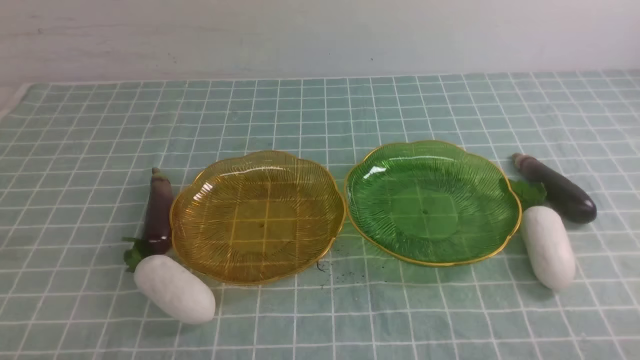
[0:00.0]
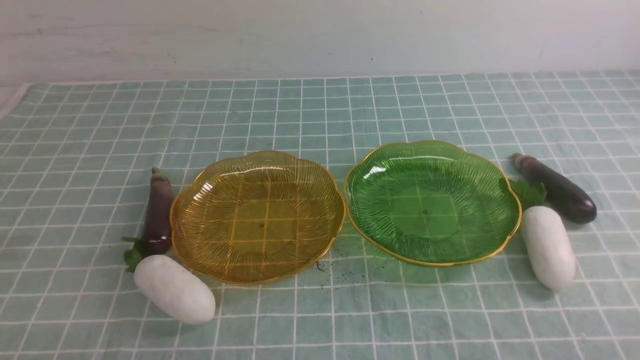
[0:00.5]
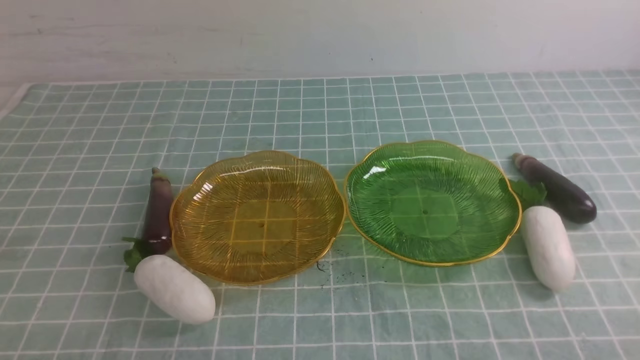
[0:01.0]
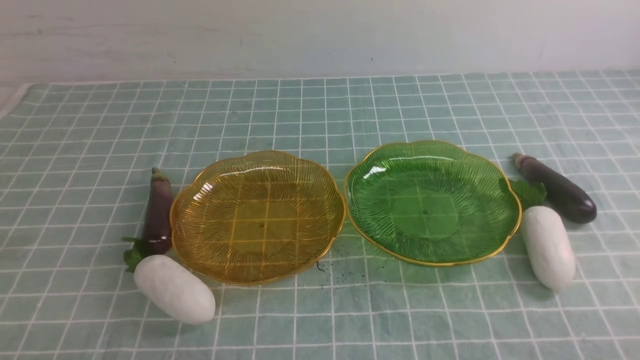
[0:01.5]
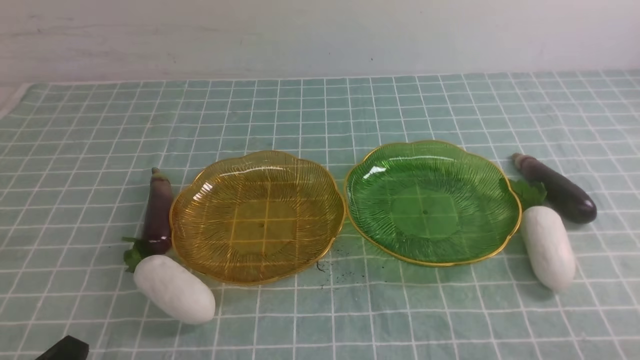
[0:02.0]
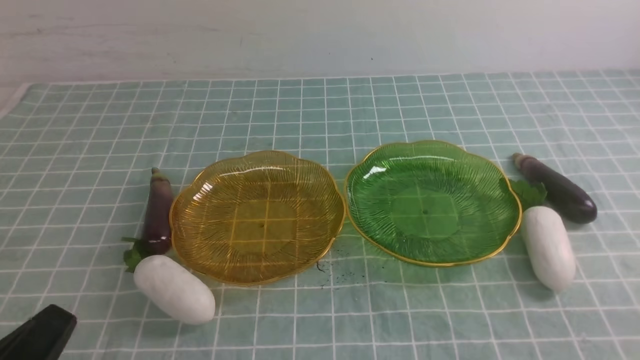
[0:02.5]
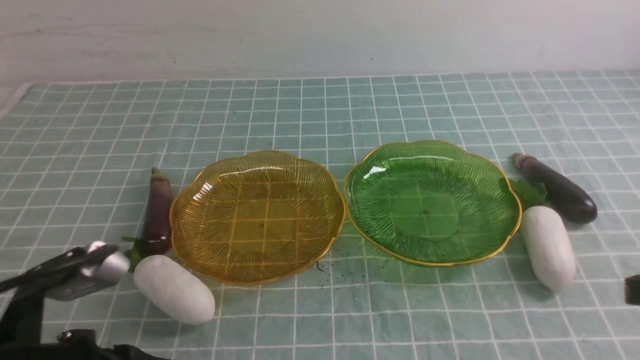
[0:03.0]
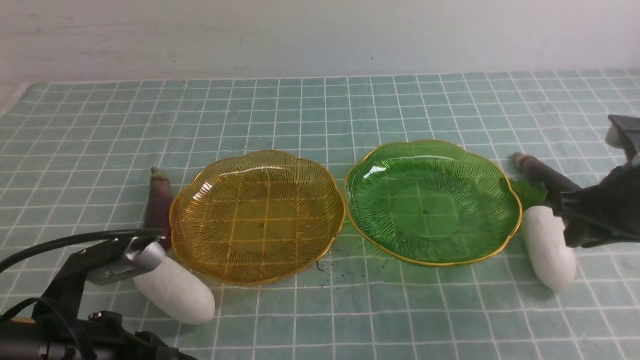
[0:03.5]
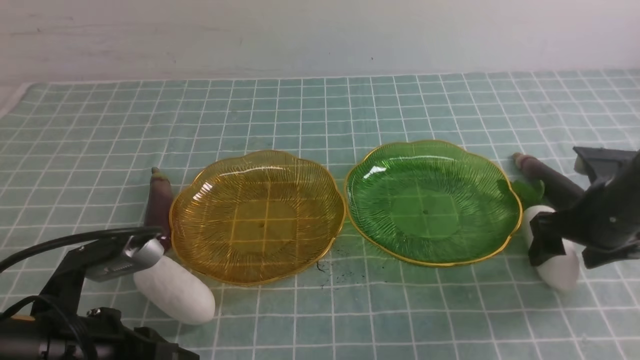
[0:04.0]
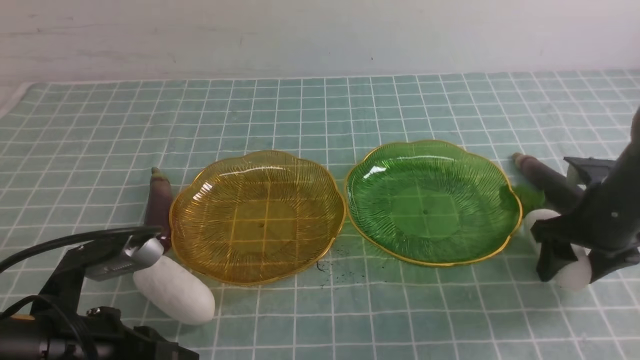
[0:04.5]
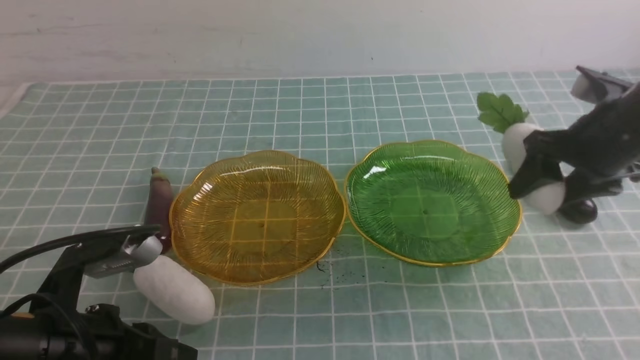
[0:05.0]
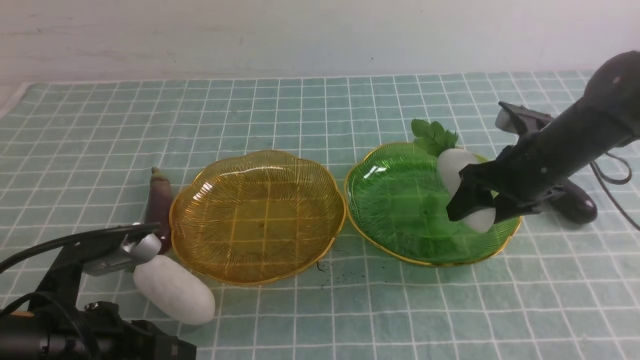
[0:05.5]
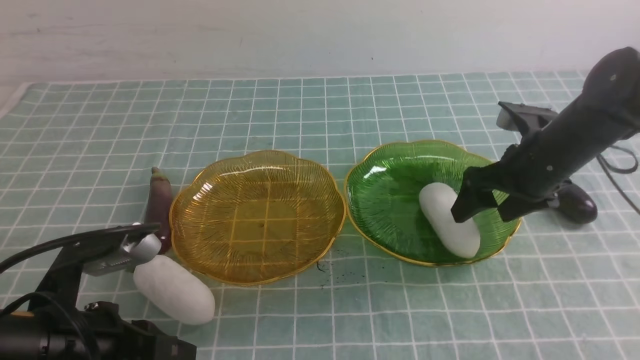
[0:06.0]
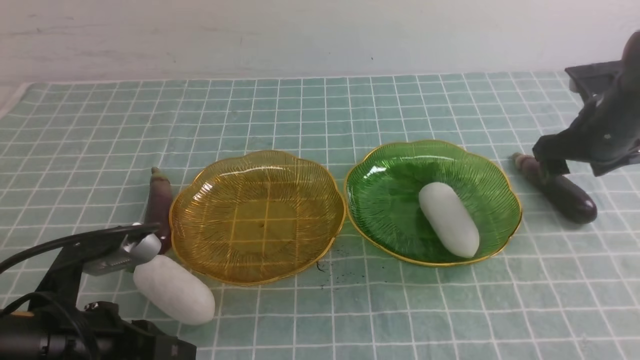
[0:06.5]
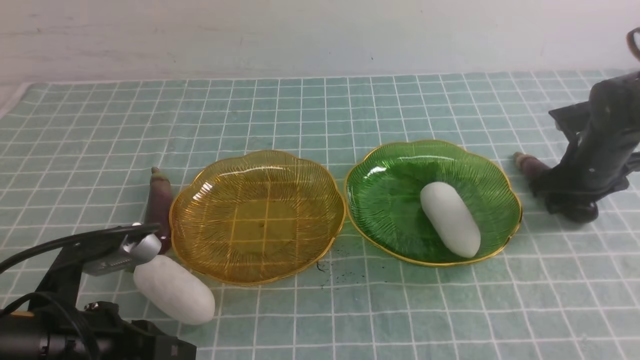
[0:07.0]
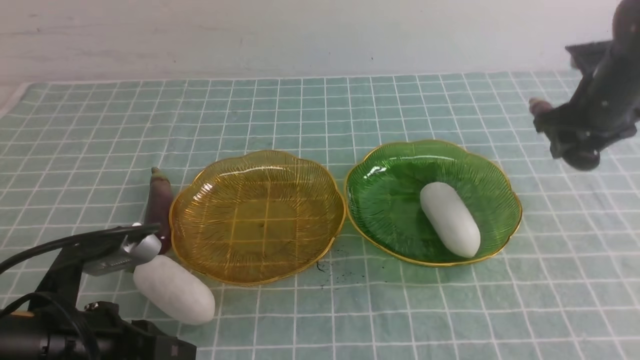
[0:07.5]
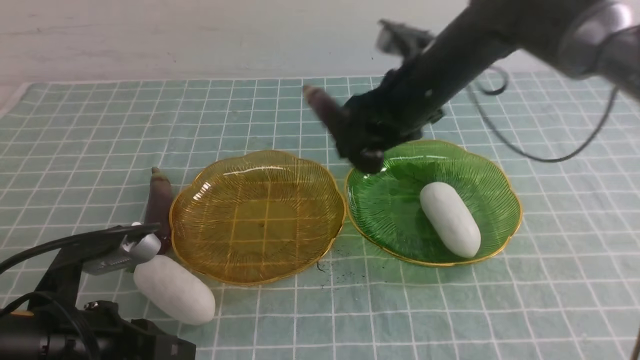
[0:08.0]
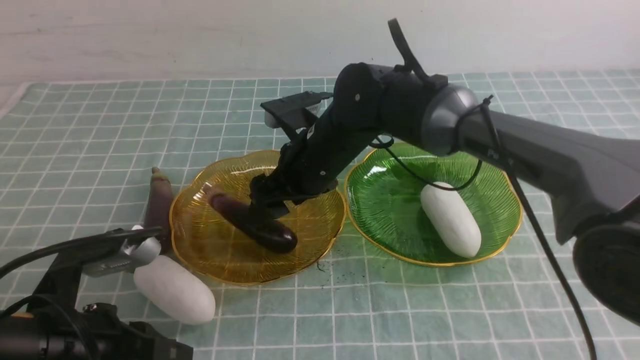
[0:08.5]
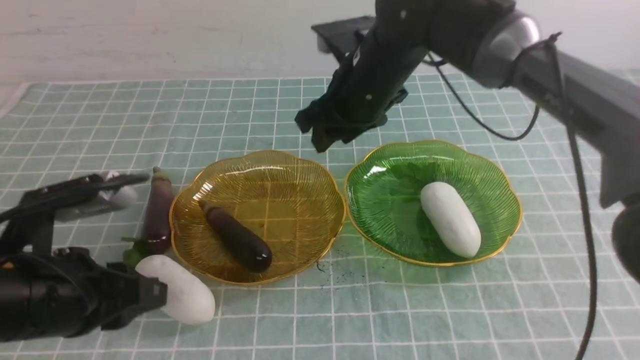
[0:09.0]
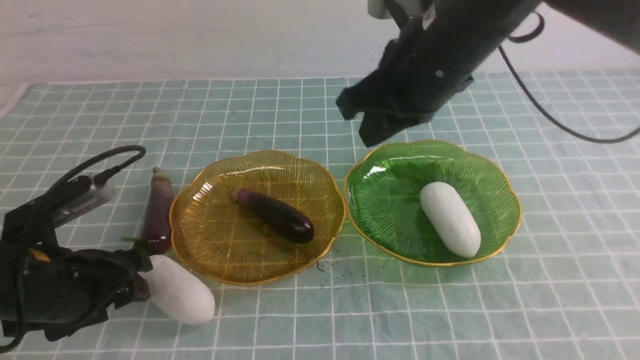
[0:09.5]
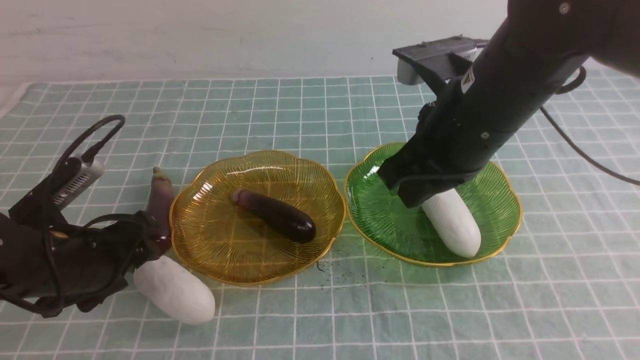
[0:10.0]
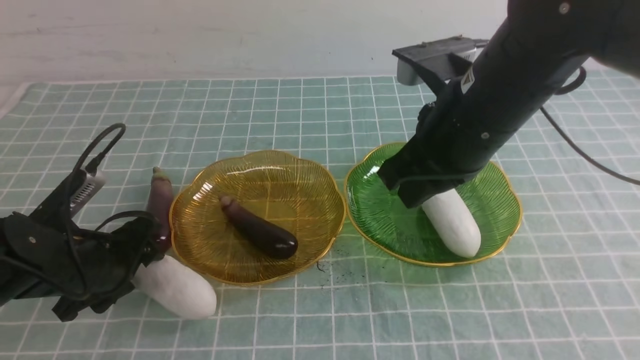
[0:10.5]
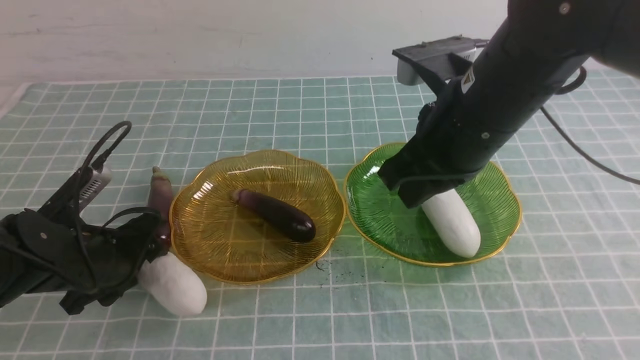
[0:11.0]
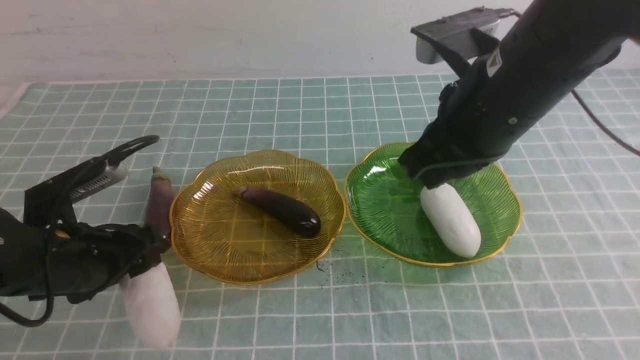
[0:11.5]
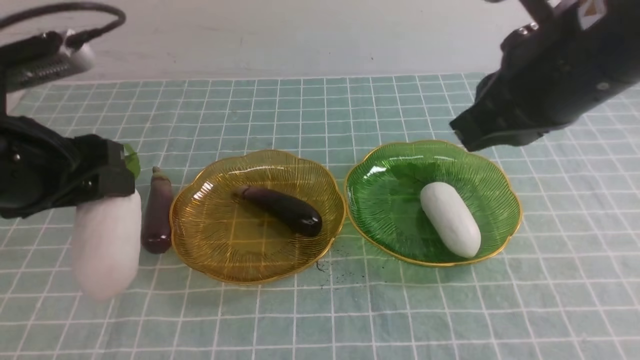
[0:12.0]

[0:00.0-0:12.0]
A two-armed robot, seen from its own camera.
Step, 0:00.0 to 0:05.5: use the right arm to grab a radish and put it into the right plate.
Step, 0:06.0 to 0:08.5: use the right arm to grab an eggplant and put it into the left plate.
0:02.0 to 0:04.0: The left gripper heads forward, covering some 10 cm. The right gripper goes some 25 cm forward, and opens its fingers.
0:04.0 to 0:06.0: The right gripper goes roughly 10 cm forward and to the left.
0:06.0 to 0:08.0: The right gripper goes approximately 15 cm to the left, and closes.
0:08.0 to 0:10.0: The left gripper is displaced forward by approximately 10 cm, and opens its fingers, while the right gripper moves backward and upward, roughly 15 cm, and closes its fingers.
0:10.0 to 0:12.0: The left gripper moves upward, about 15 cm. Meanwhile the right gripper is displaced upward and backward by about 10 cm.

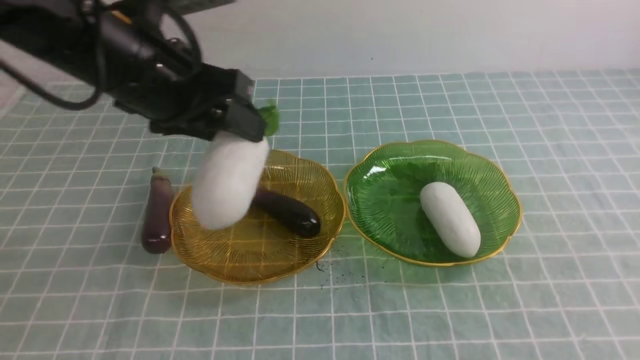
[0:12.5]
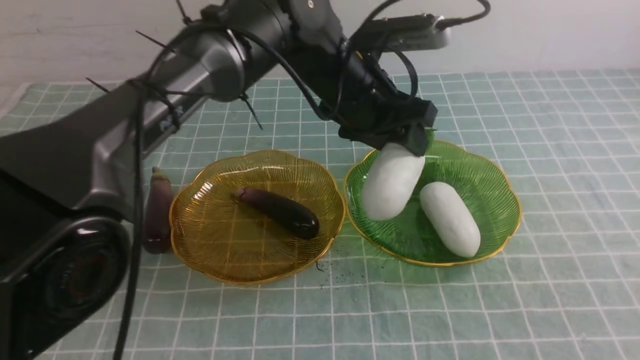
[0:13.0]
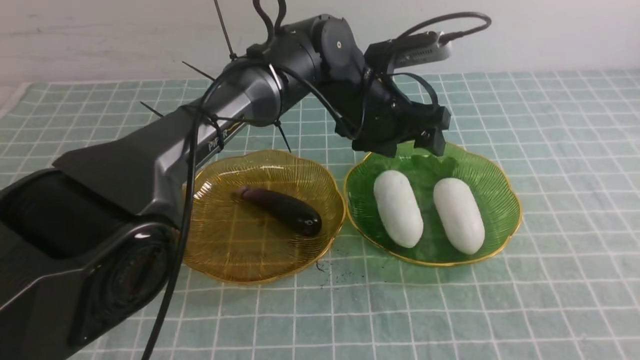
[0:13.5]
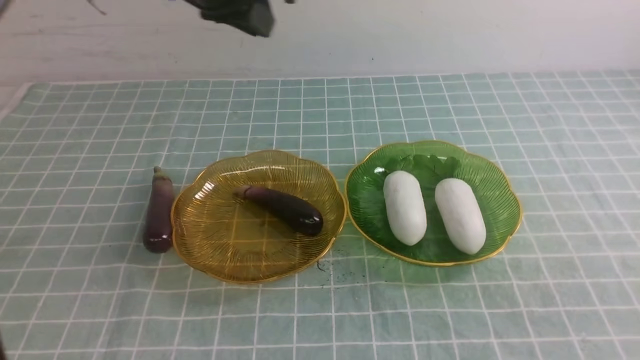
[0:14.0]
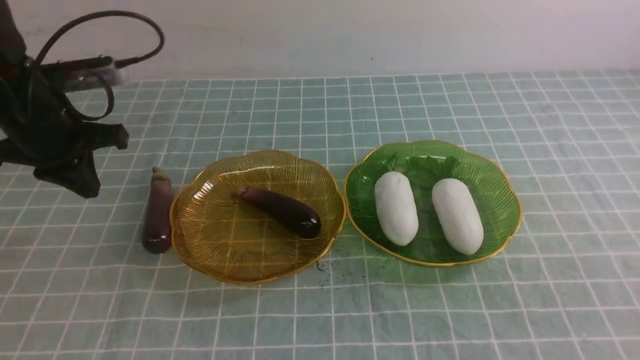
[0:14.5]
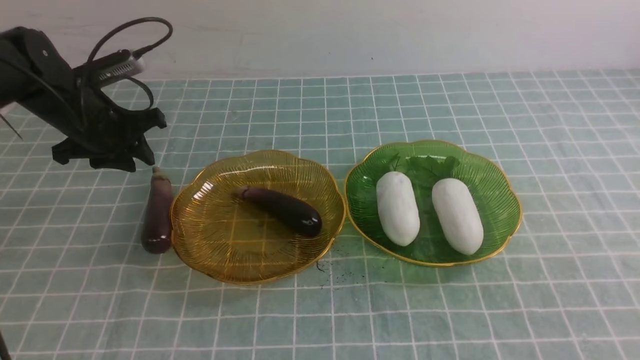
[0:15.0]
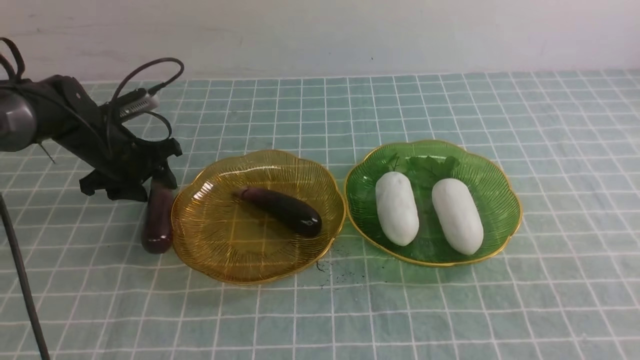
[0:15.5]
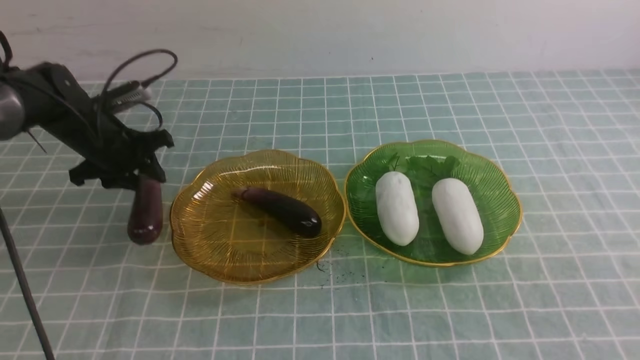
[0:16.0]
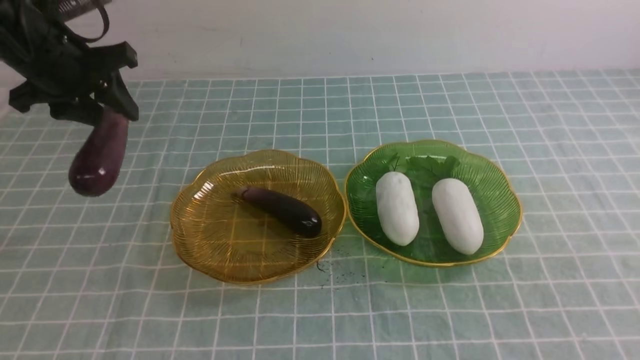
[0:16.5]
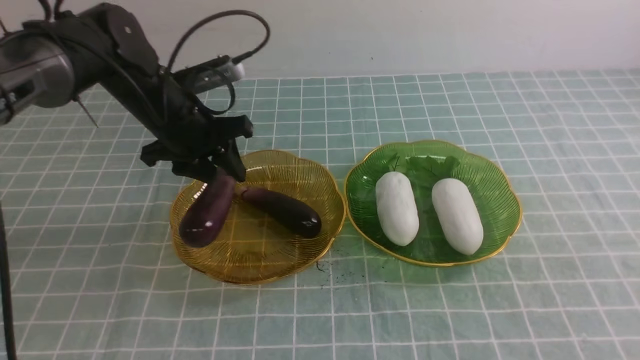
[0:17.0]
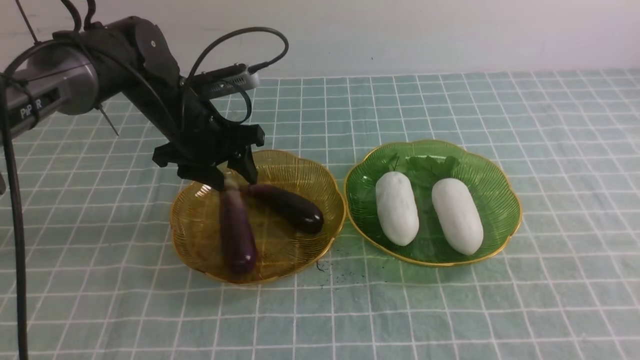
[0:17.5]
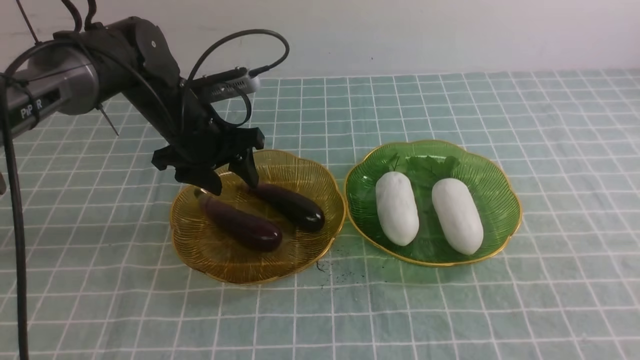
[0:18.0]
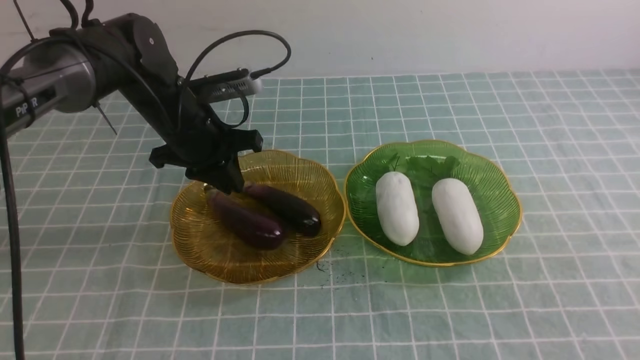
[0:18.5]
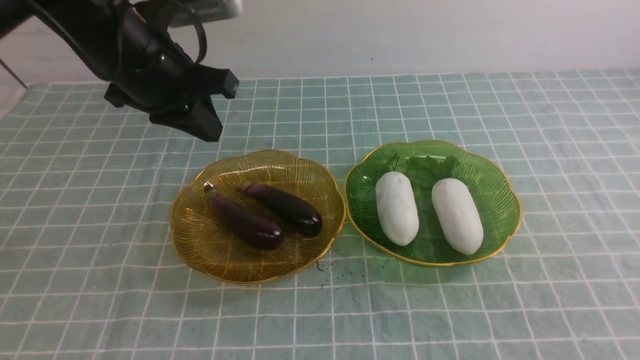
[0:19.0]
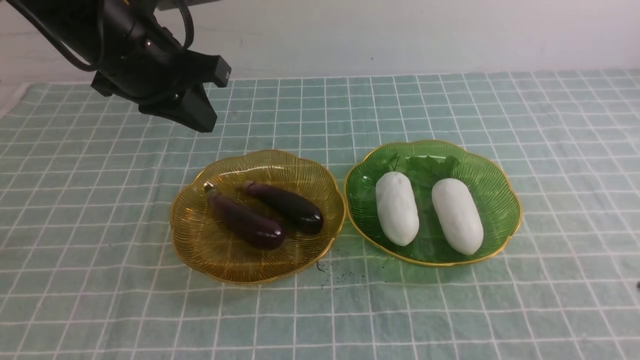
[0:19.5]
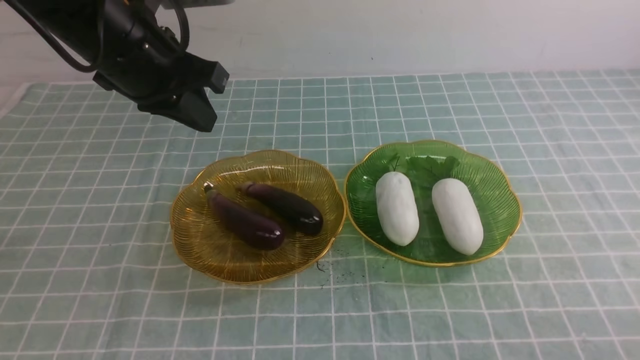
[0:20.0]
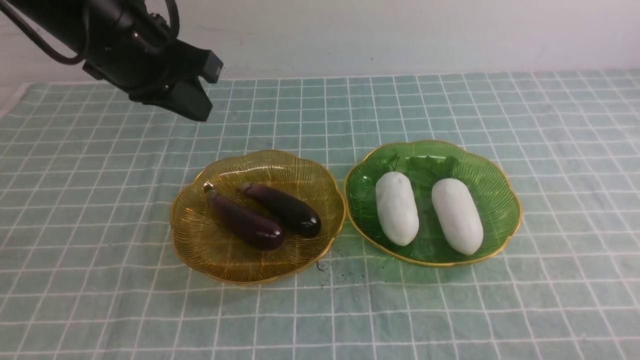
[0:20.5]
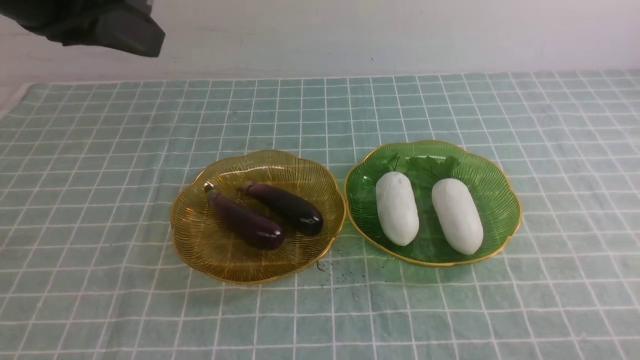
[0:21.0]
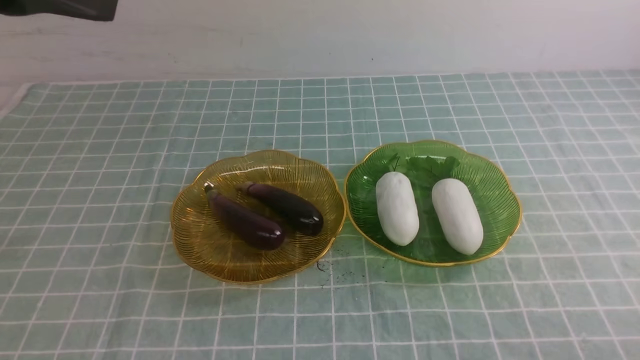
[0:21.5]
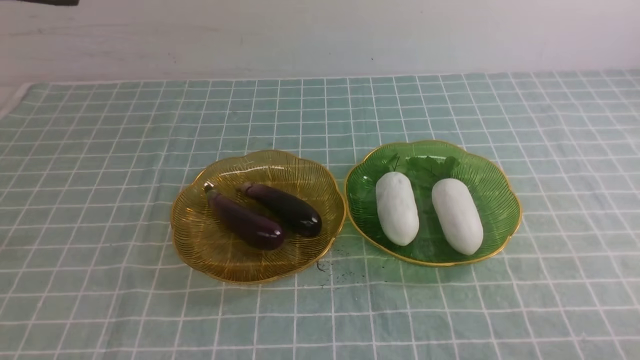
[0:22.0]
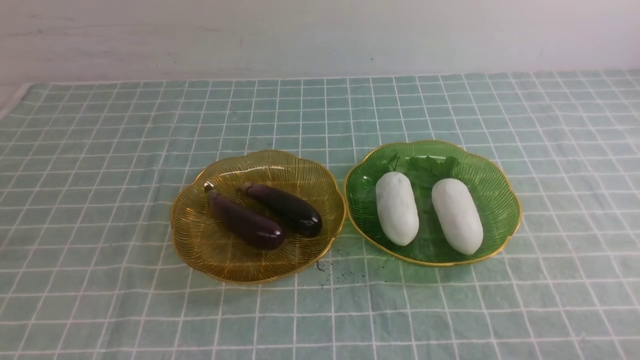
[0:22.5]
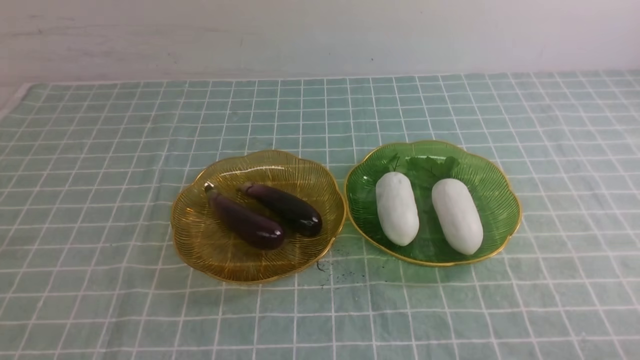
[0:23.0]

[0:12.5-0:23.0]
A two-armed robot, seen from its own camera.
Step, 0:13.5 to 0:17.5: use the left arm to grab an eggplant and put it into the left plate.
0:12.5 to 0:14.5: The left gripper shifts approximately 15 cm to the left, downward and forward, and closes. The right gripper shifts by roughly 5 cm.
0:14.5 to 0:16.5: The left gripper moves some 10 cm downward and comes back, and opens.
0:16.5 to 0:19.0: The left gripper shifts roughly 10 cm to the right, goes downward and returns, about 5 cm each way, and closes its fingers, while the right gripper travels downward by some 5 cm.
0:19.0 to 0:21.0: The right gripper goes roughly 15 cm downward. The left gripper moves upward and backward, roughly 15 cm.
0:21.0 to 0:23.0: The left gripper shifts approximately 30 cm backward and downward.
